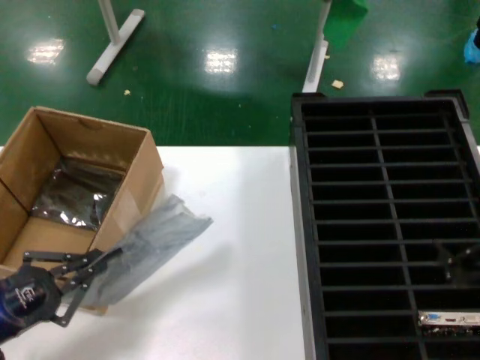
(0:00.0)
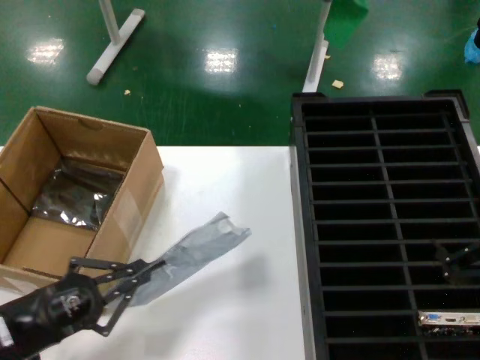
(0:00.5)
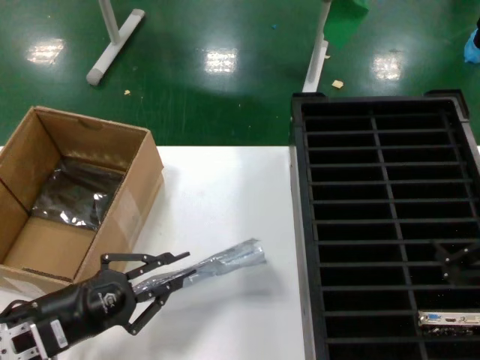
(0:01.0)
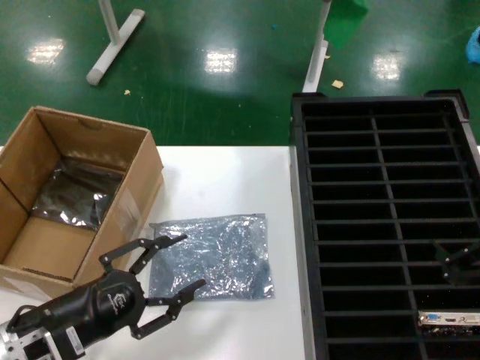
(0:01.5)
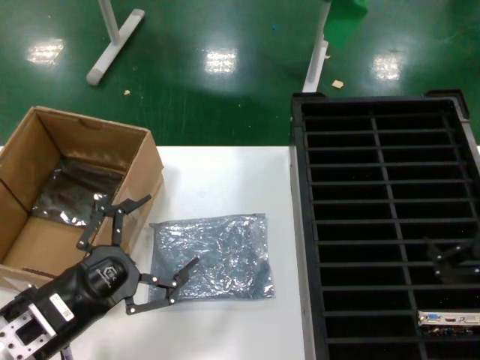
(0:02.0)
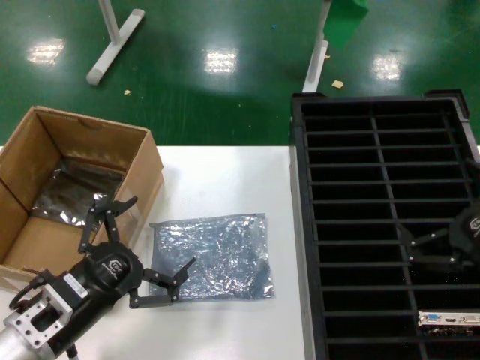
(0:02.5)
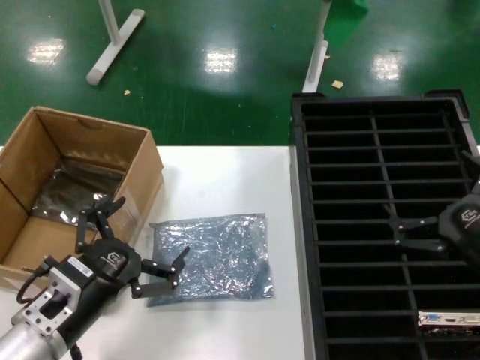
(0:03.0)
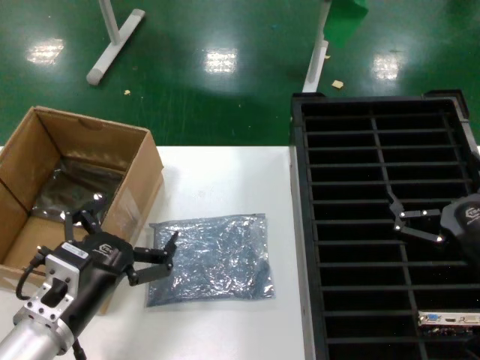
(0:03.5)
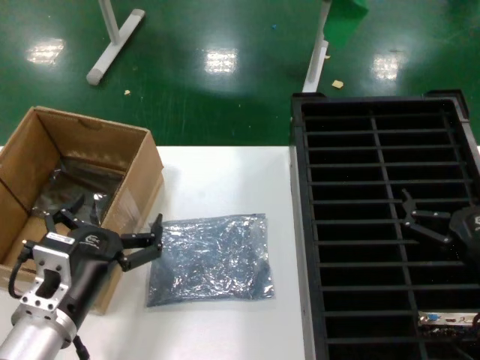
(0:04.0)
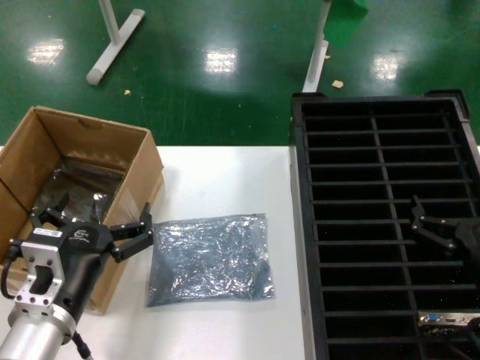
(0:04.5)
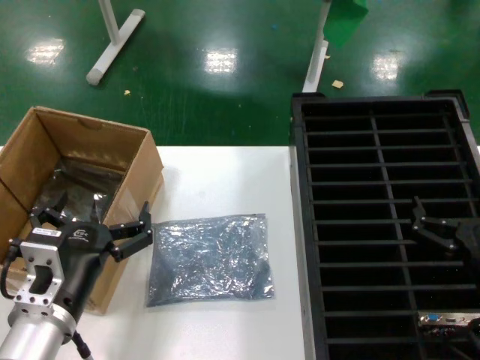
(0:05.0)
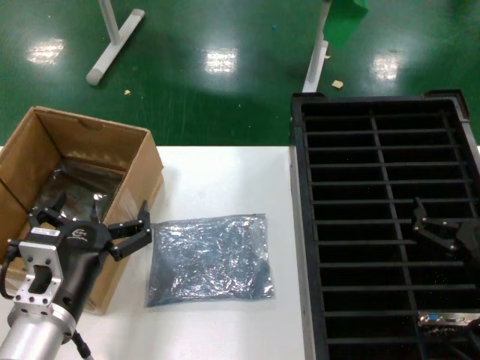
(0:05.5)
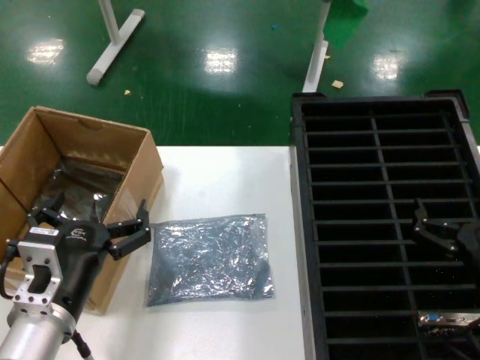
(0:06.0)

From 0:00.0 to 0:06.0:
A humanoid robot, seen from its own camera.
Task of the whole recording: take out graphics card from box remove packaging put into black container.
Step, from 0:00.0 to 0:01.5: Place the down the bag.
From 0:00.0 to 0:02.0: The left hand moves to the right, some 15 cm.
From 0:02.0 to 0:04.0: The left hand heads to the right, covering some 5 cm; the right hand moves downward, some 10 cm.
From 0:04.0 to 0:06.0: There are only small adjustments of the hands.
